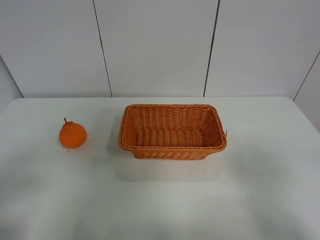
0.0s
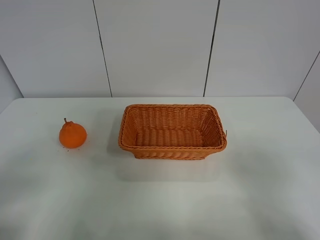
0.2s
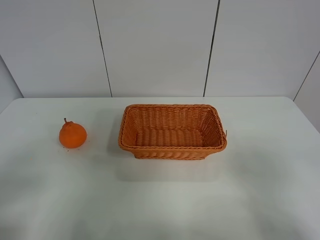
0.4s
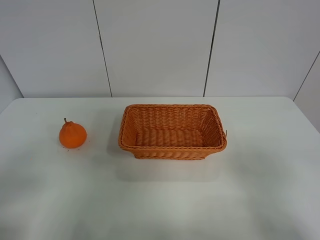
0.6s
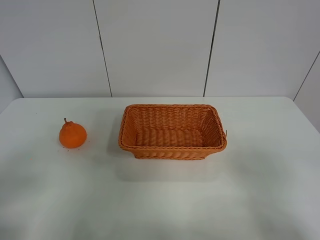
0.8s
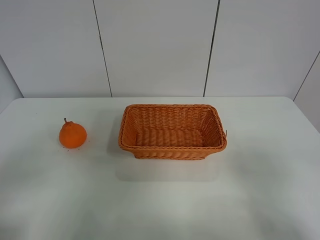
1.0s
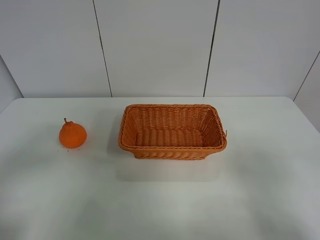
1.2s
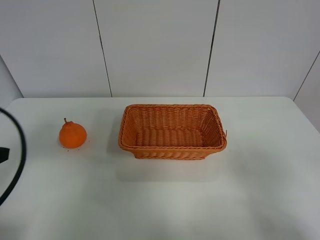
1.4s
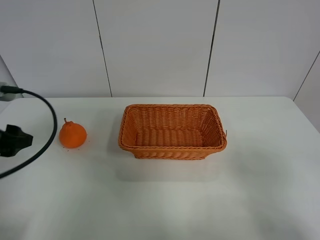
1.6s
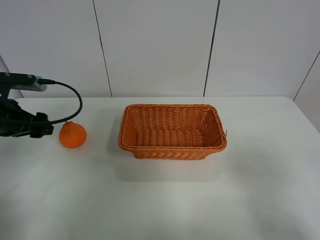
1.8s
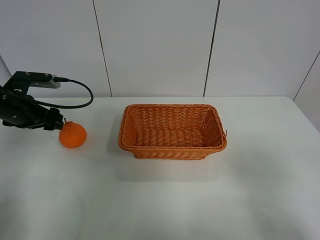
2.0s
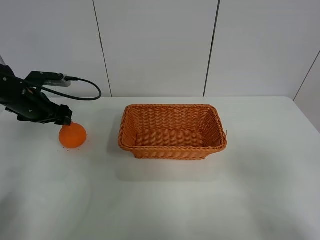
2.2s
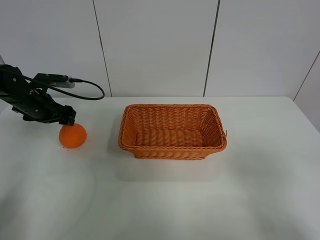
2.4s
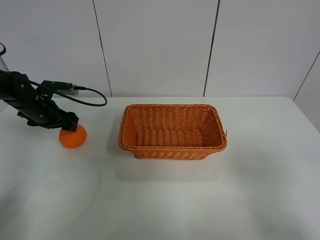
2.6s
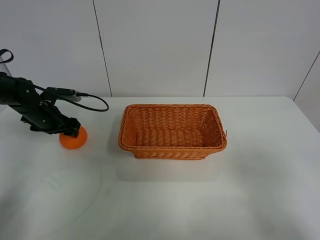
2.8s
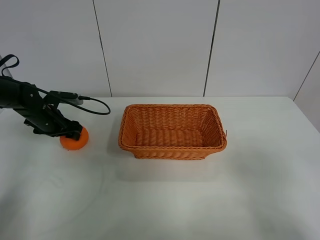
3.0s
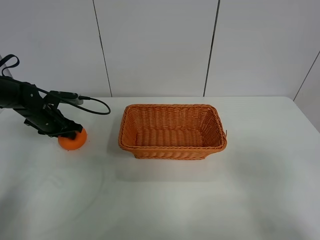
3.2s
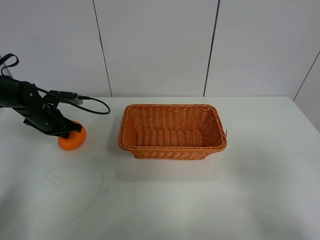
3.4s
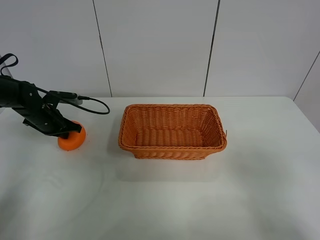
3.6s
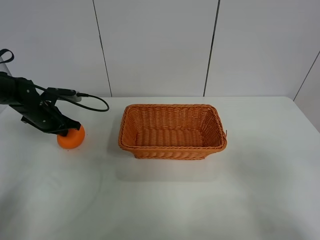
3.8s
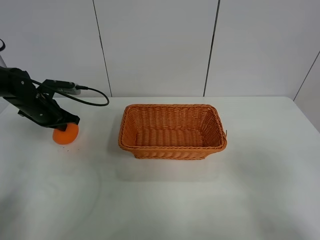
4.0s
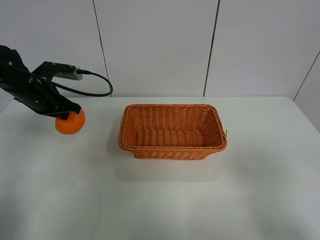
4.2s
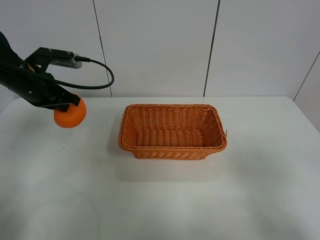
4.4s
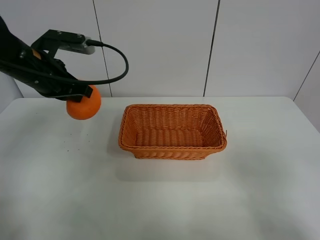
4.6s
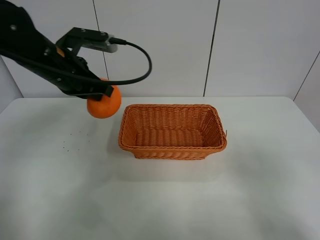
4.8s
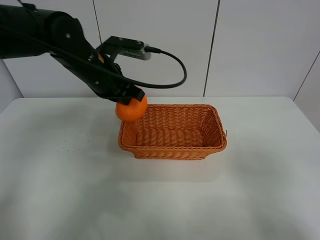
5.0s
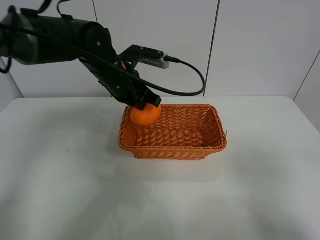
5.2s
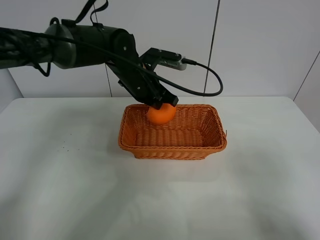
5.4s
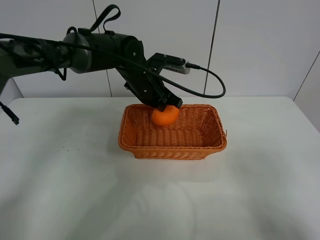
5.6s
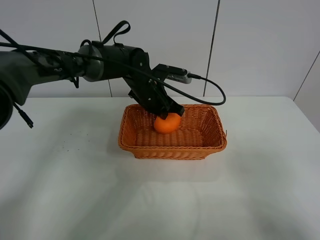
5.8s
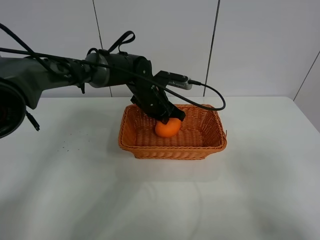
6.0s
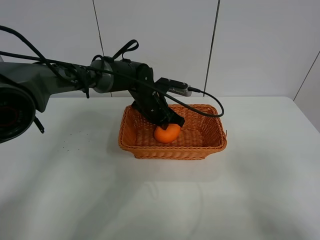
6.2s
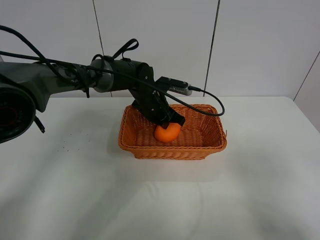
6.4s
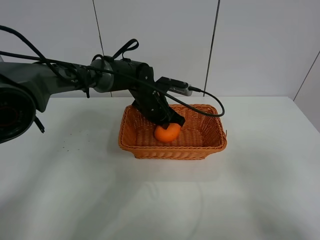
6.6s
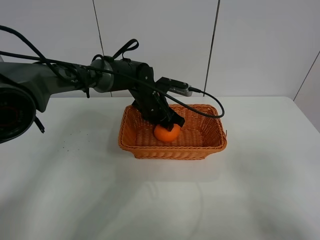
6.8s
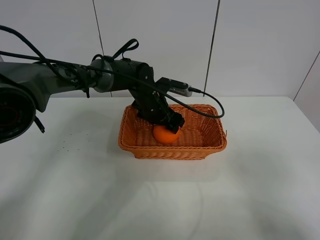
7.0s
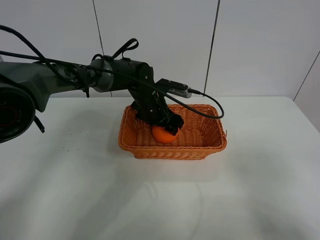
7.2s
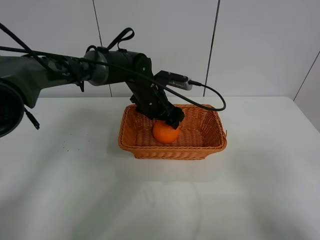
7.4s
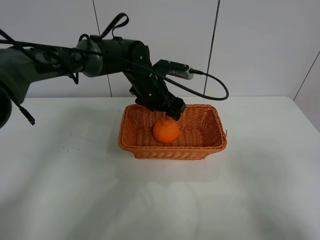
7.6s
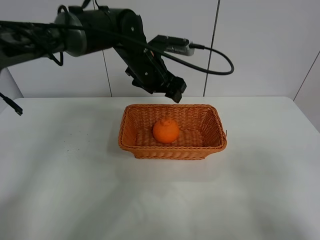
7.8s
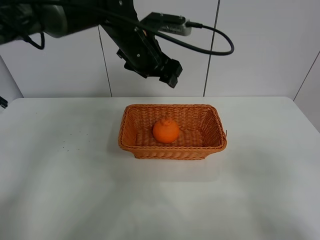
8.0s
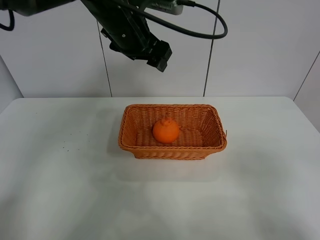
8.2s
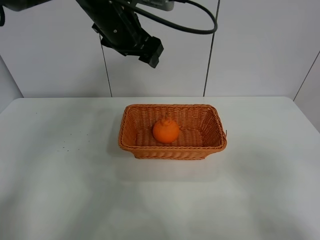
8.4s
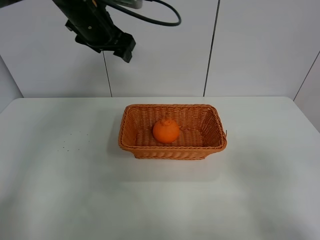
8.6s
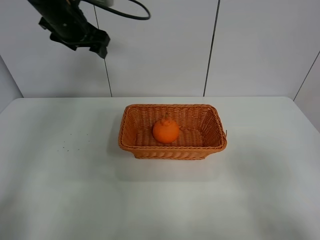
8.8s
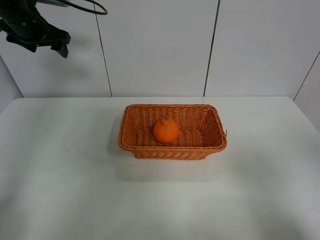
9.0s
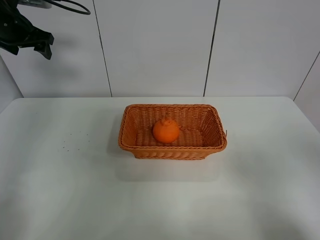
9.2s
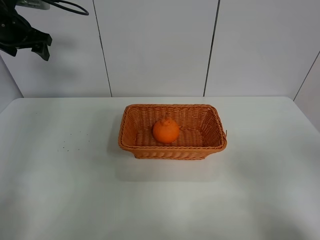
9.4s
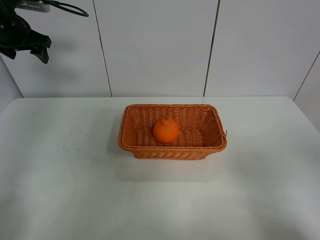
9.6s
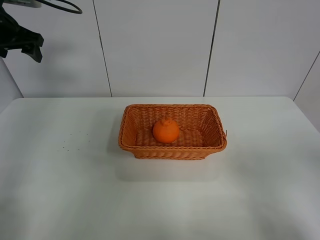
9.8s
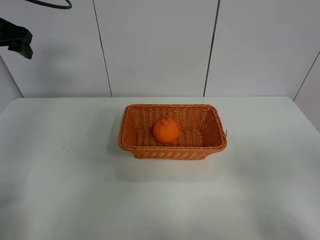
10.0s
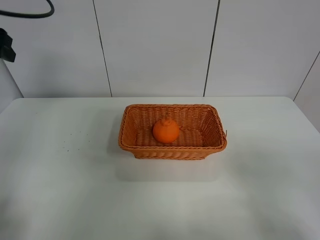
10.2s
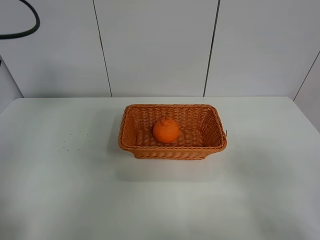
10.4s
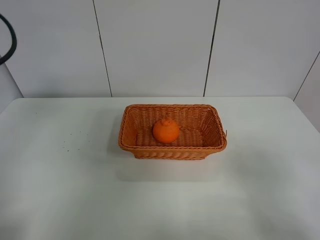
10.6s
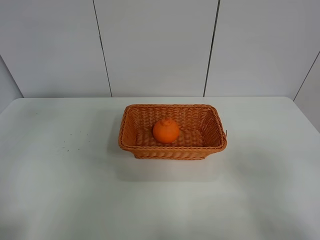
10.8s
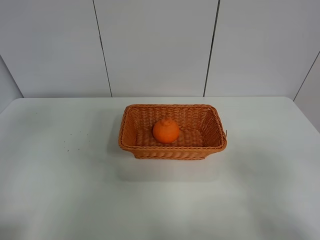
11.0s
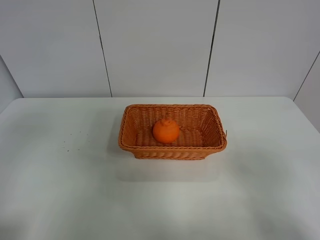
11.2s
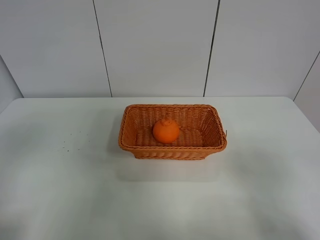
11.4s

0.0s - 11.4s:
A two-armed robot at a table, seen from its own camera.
Task of the whole recording: left gripper grabs oranges and puts them in the basket.
Step, 0.0s - 3.6s: Grasp the orange with left gripper.
Step, 3.8s - 8.6s: Place the orange in the basket with left gripper.
0.0s - 1.4s: The left gripper is displaced forward by approximately 15 cm.
1.4s - 2.8s: The left gripper moves forward and downward, approximately 25 cm.
2.8s - 4.2s: The left gripper travels upward by roughly 10 cm, and closes its fingers.
4.2s - 5.6s: The left gripper travels to the right by approximately 25 cm.
5.6s - 7.2s: The left gripper goes roughly 5 cm downward, and opens.
7.2s - 8.6s: The left gripper travels upward and to the left by about 25 cm.
8.6s - 10.0s: The left gripper heads to the left, covering about 15 cm.
10.0s - 11.4s: The left gripper goes approximately 30 cm backward.

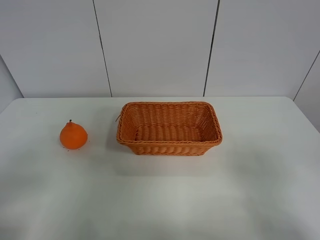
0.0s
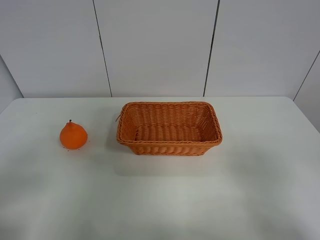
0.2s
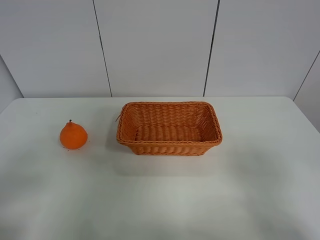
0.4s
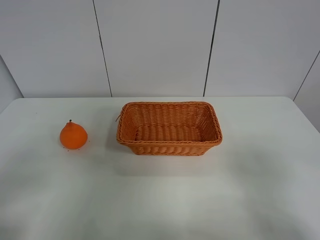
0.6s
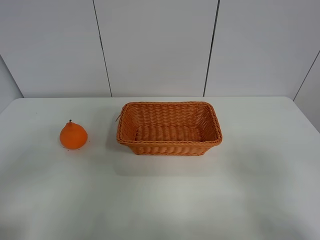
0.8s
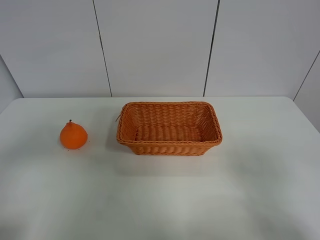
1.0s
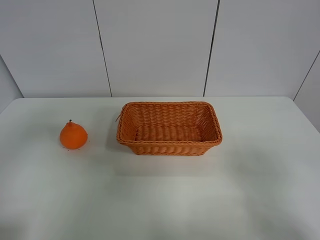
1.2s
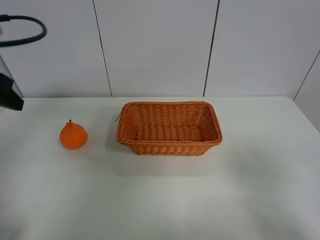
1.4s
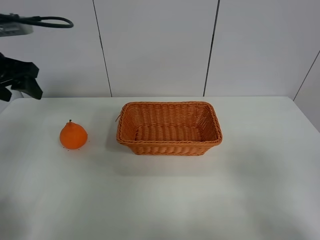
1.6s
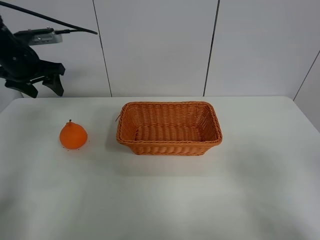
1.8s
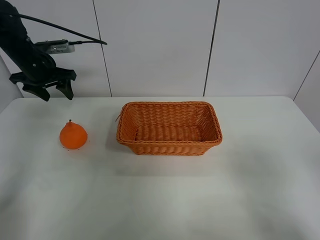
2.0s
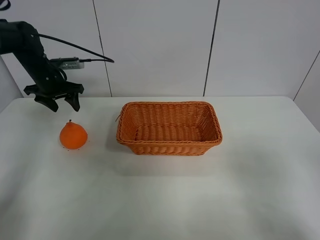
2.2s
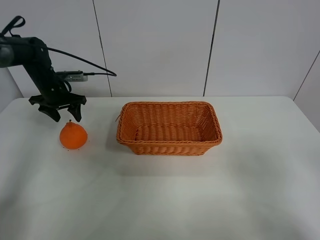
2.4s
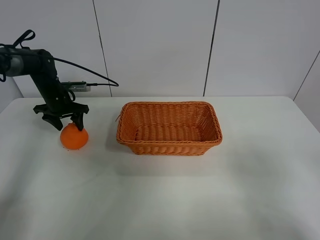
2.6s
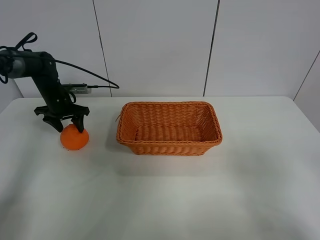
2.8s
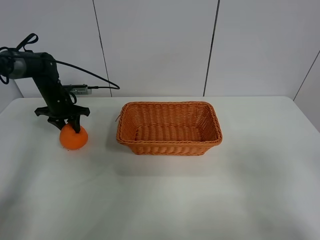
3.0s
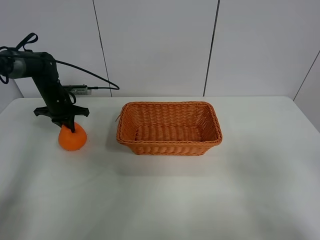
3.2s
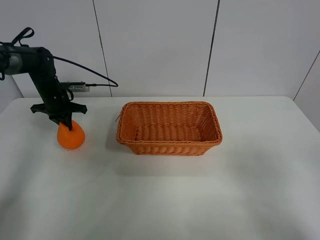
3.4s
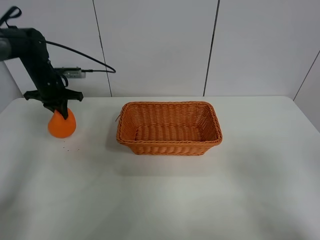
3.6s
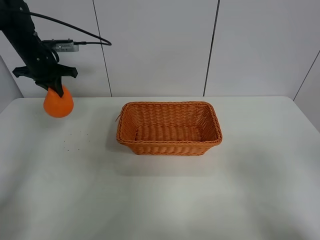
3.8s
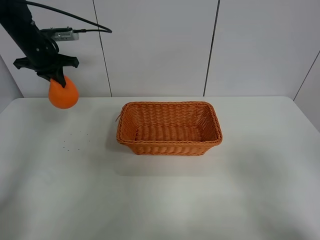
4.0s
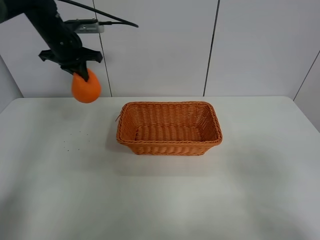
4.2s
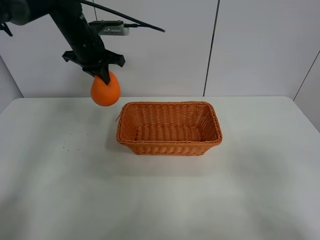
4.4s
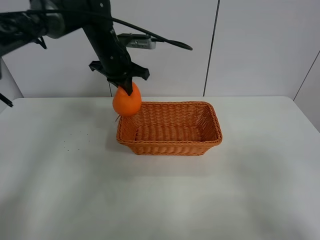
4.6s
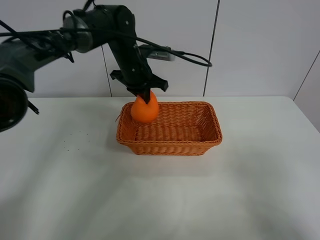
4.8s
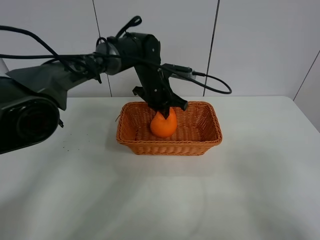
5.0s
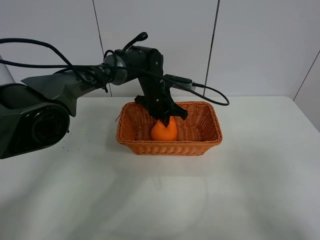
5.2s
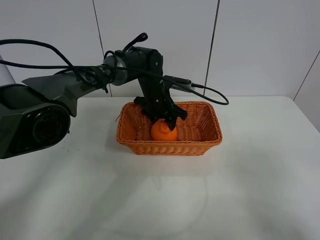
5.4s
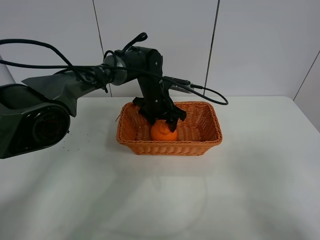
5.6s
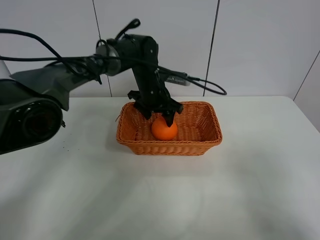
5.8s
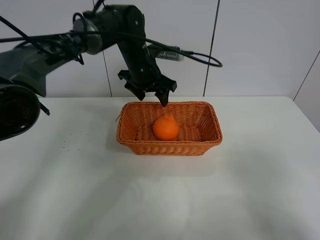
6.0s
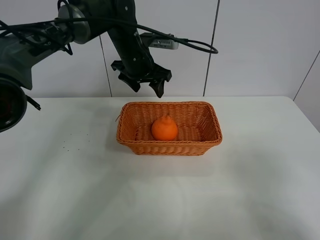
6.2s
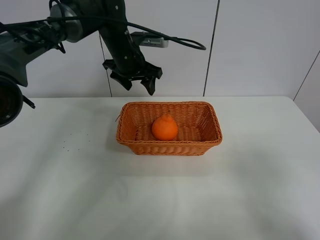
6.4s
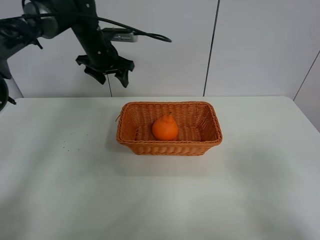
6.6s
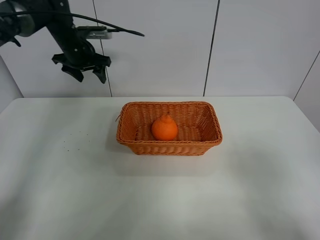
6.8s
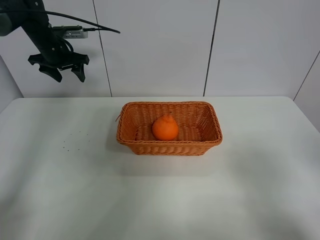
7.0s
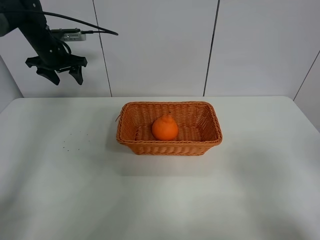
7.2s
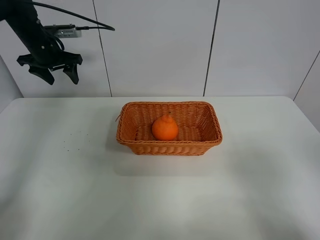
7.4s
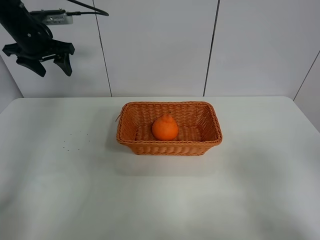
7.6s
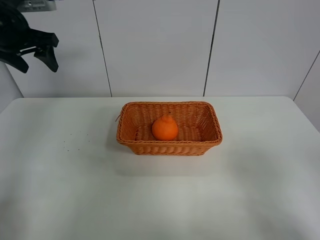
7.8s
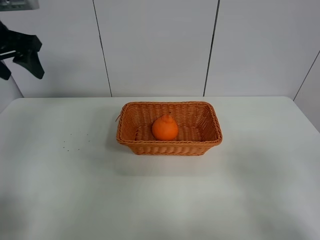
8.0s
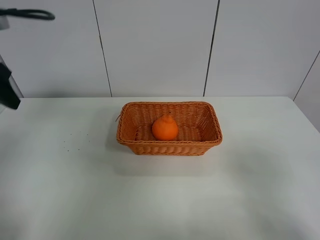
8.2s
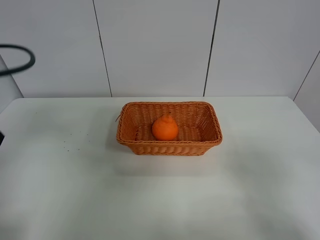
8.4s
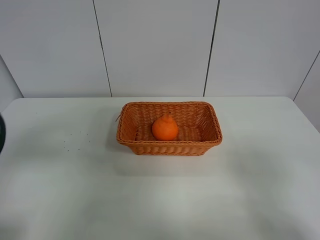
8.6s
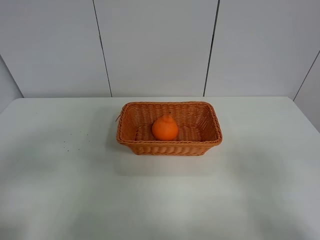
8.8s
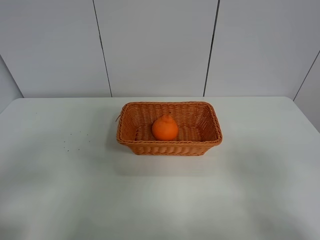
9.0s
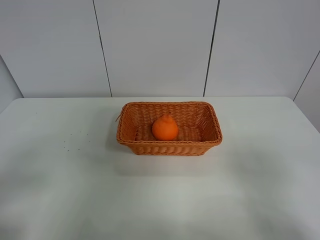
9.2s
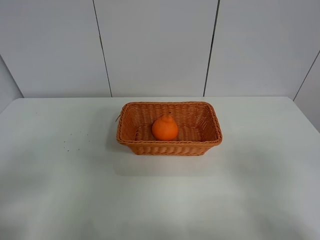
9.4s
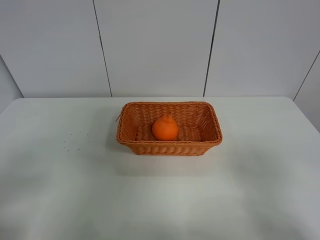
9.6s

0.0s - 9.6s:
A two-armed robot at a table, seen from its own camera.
Task of the whole recording: left gripper grabs oranges and puts them in the basket.
Step, 0.0s - 3.2s: Grasp the orange with left gripper.
Step, 3.4s - 6.6s: Place the orange in the basket with left gripper.
0.0s - 1.6s: The left gripper moves forward, roughly 30 cm.
1.6s - 3.2s: The left gripper heads downward and forward, covering some 25 cm, and closes its fingers.
3.2s - 4.8s: The left gripper moves to the right and upward, approximately 25 cm.
4.8s - 6.4s: The left gripper travels downward and back again, roughly 10 cm each way, and opens.
6.4s - 8.0s: The left gripper moves to the left, backward and upward, approximately 25 cm.
8.0s - 9.6s: The left gripper shifts approximately 30 cm backward.
